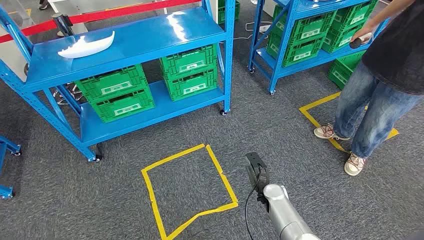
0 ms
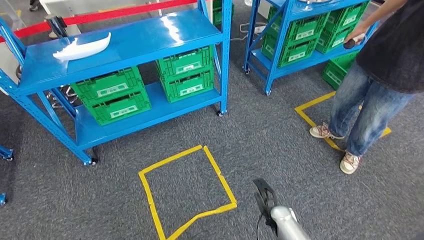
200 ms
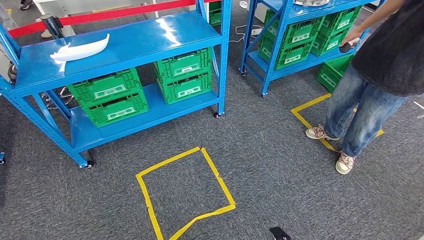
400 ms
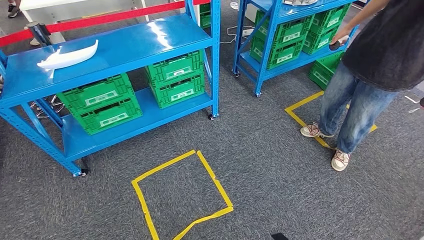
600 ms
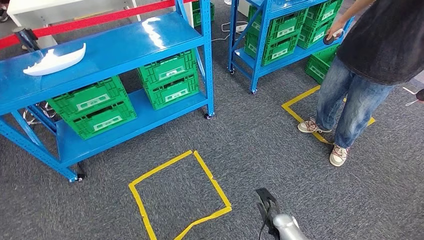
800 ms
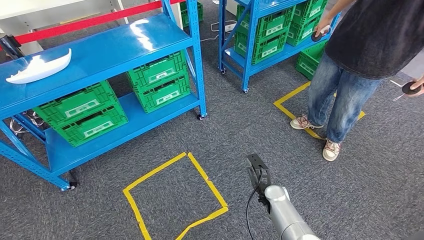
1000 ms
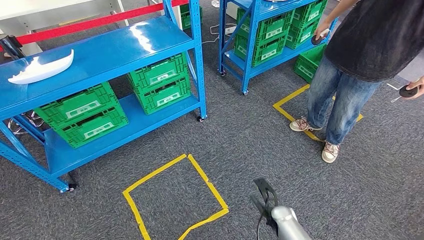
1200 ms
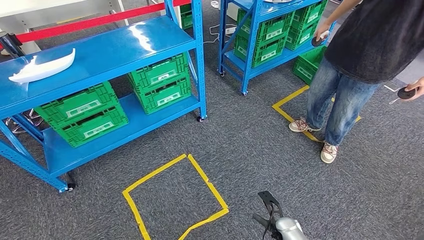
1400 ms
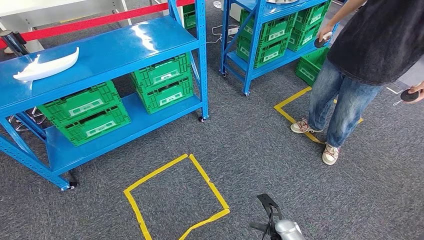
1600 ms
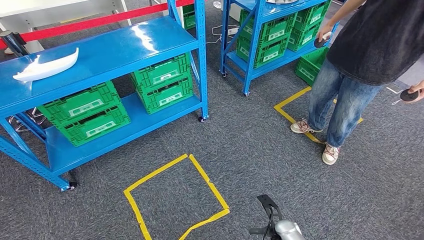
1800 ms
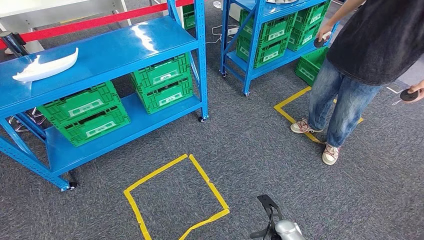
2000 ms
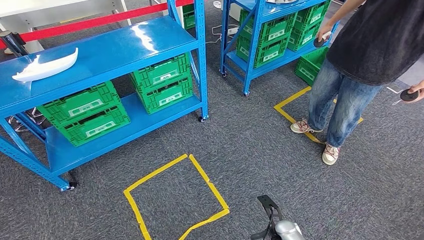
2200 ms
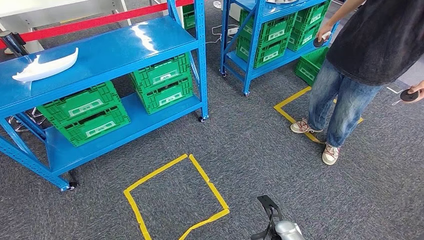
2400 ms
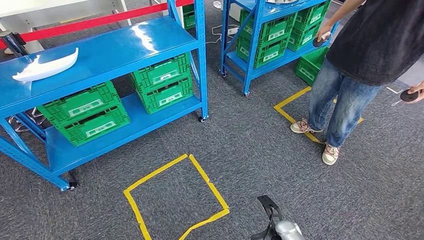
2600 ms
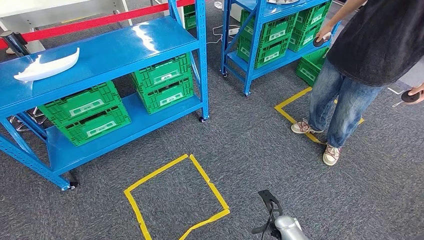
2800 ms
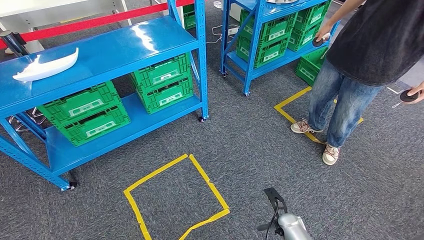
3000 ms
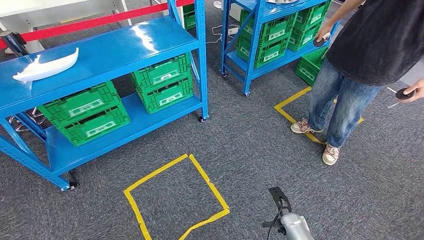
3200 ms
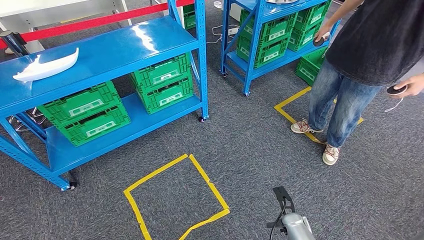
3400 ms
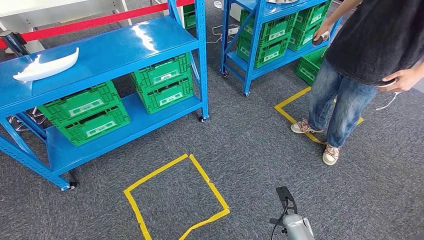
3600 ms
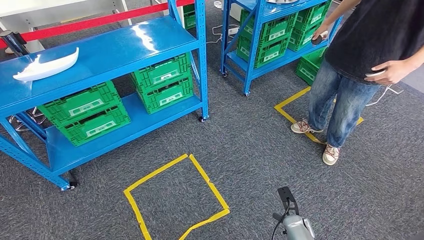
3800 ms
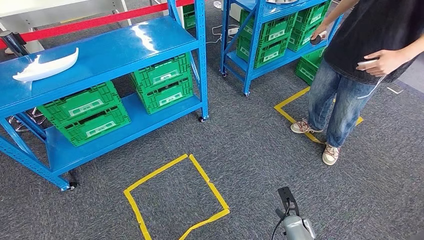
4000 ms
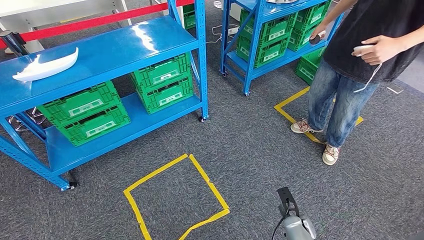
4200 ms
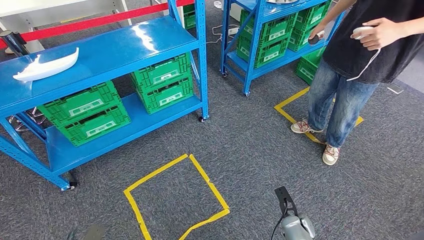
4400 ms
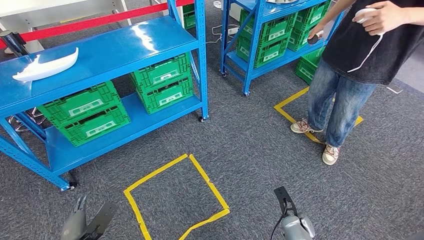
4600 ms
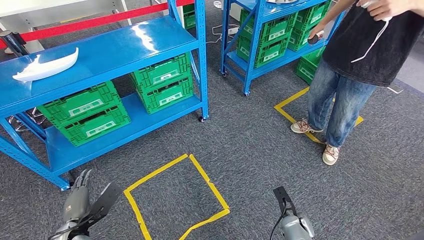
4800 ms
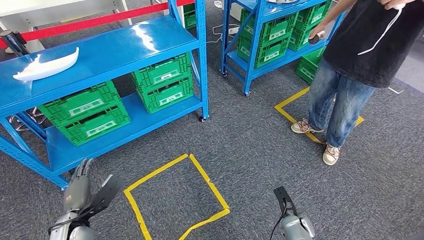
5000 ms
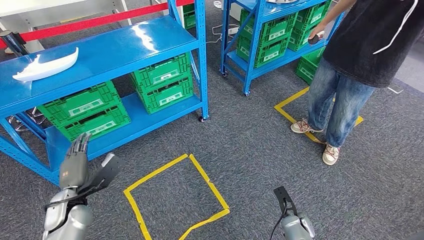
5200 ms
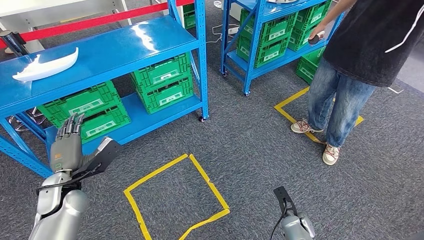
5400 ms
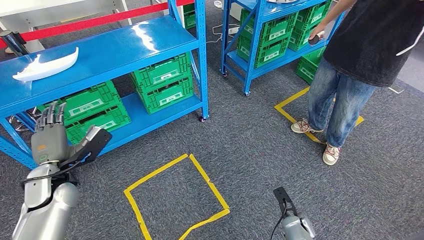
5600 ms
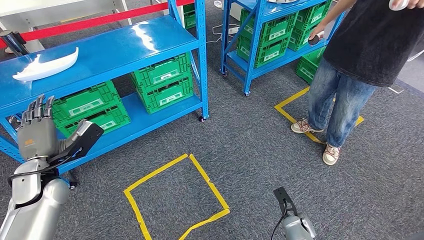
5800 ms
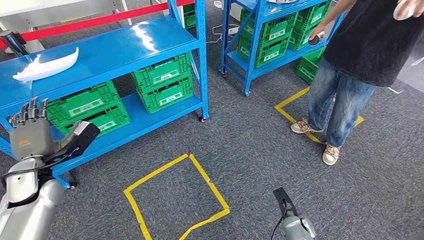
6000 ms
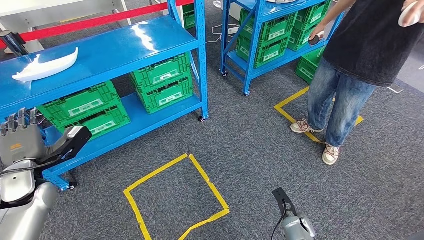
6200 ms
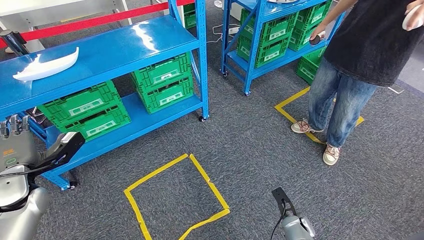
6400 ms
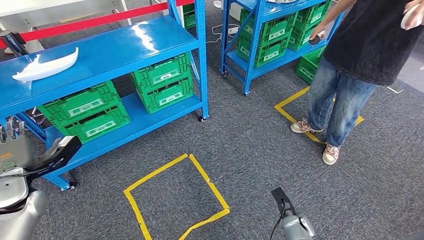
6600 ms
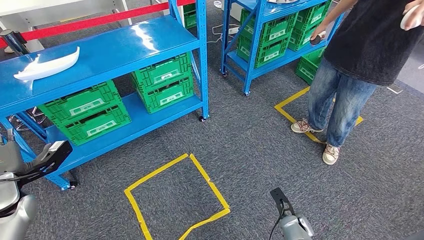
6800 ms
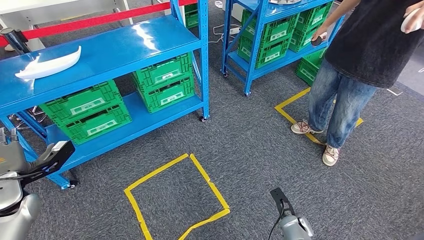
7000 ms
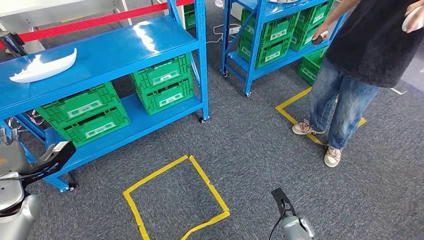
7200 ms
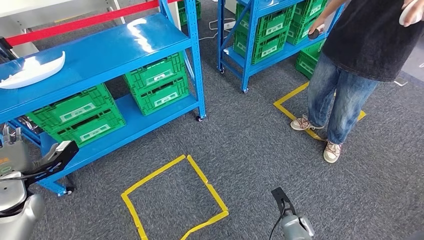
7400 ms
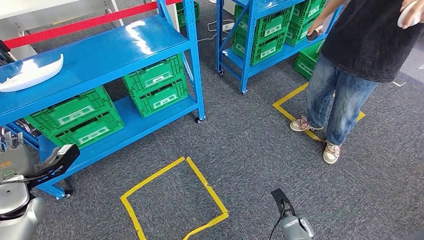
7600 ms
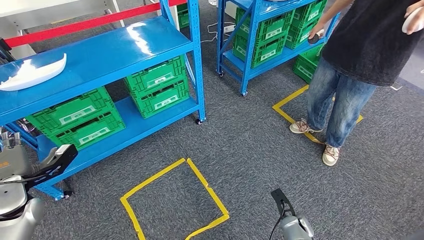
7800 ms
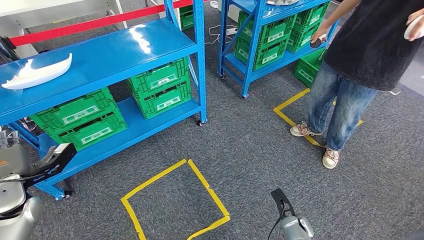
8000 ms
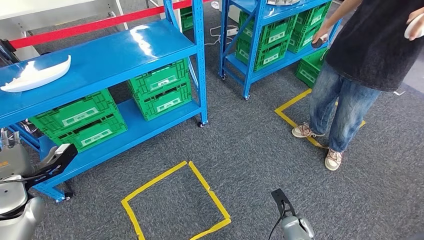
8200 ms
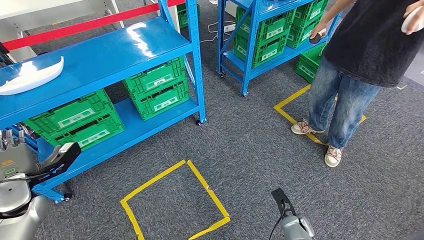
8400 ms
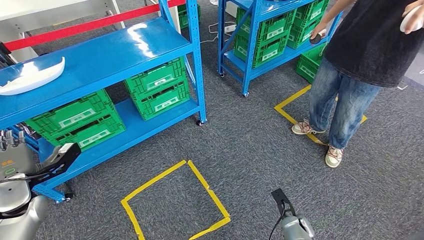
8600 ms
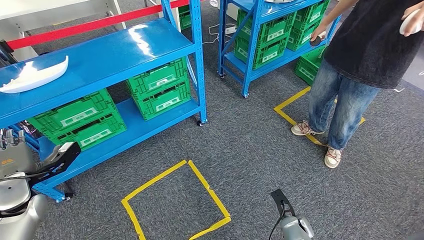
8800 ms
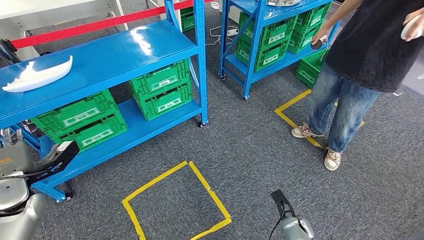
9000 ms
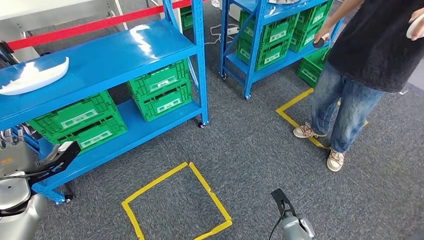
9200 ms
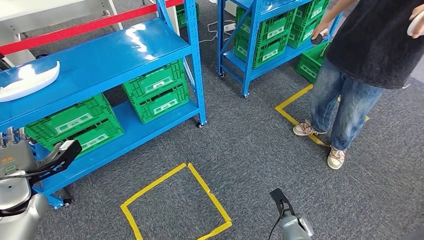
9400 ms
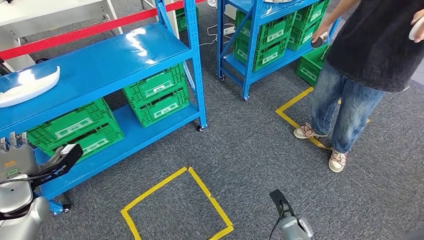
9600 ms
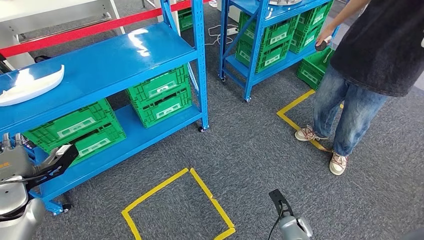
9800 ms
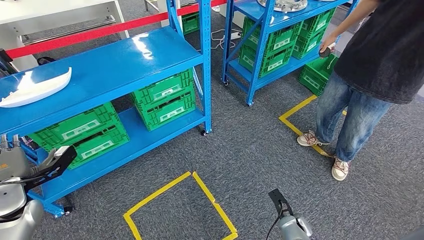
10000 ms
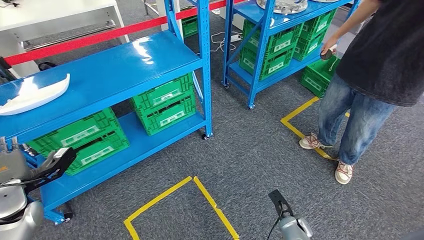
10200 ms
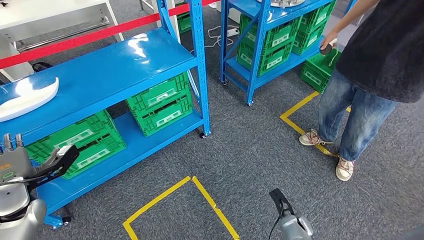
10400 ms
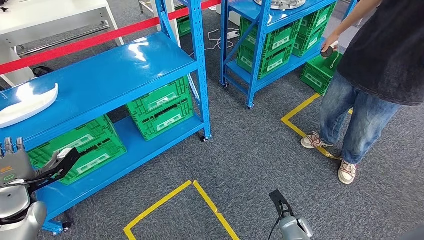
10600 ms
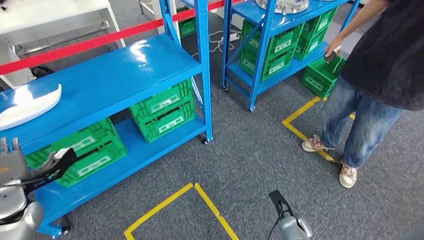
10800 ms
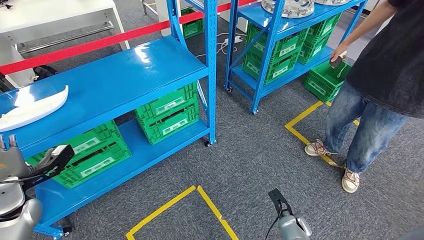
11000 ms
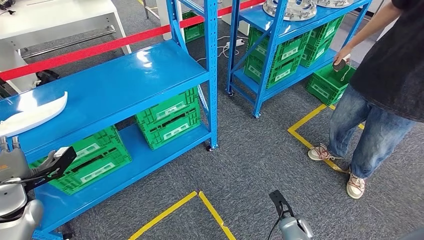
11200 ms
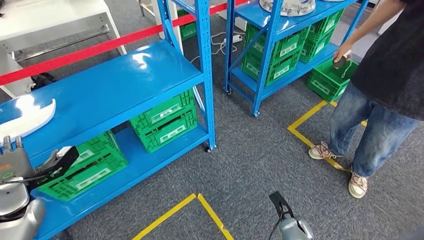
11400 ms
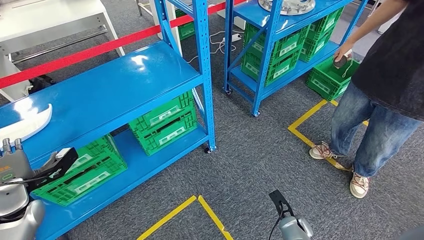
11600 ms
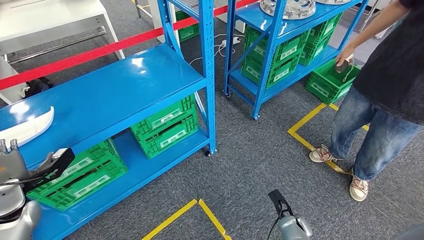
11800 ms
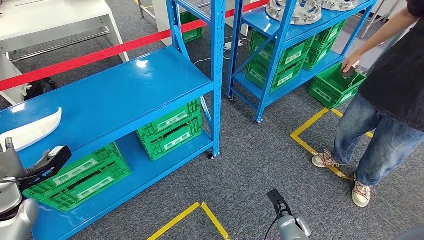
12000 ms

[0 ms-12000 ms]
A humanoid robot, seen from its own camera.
1600 ms to 3000 ms: The hands stay close to where they were, moving slightly.
4400 ms to 6000 ms: The left hand heads forward and upward, covering roughly 30 cm.

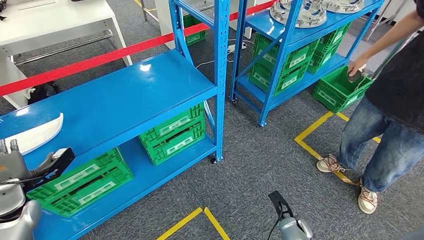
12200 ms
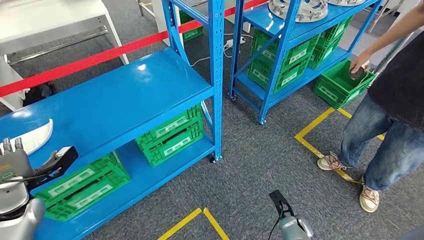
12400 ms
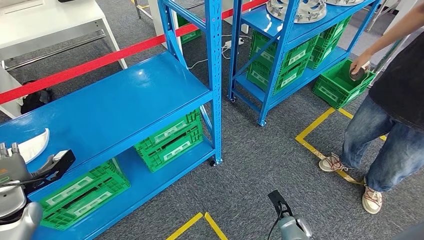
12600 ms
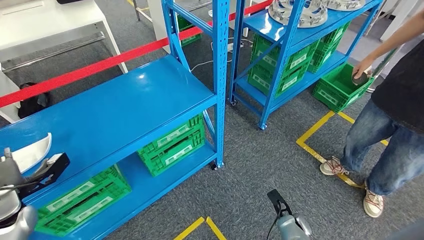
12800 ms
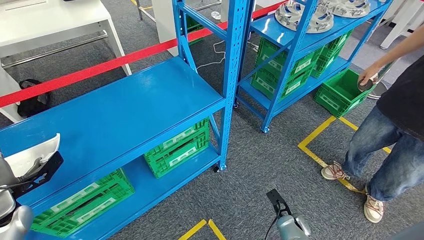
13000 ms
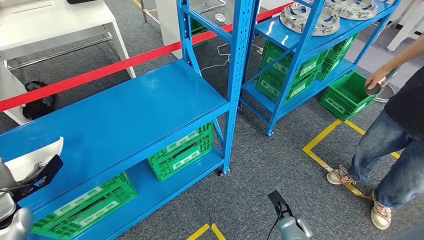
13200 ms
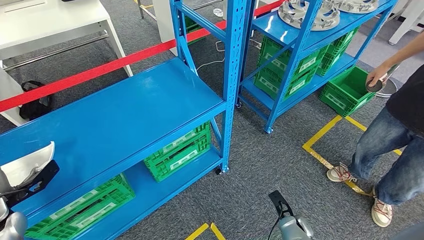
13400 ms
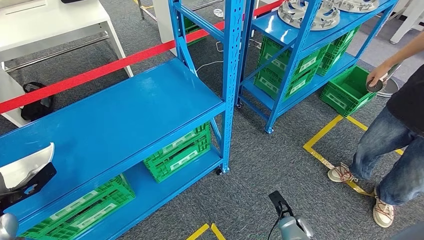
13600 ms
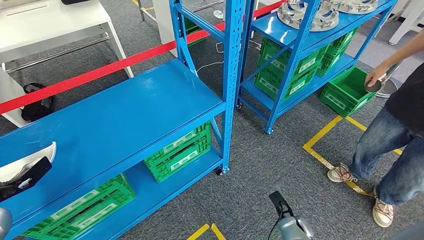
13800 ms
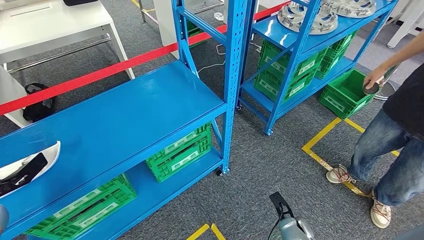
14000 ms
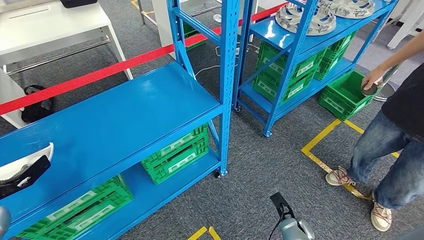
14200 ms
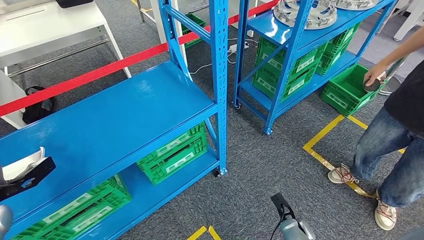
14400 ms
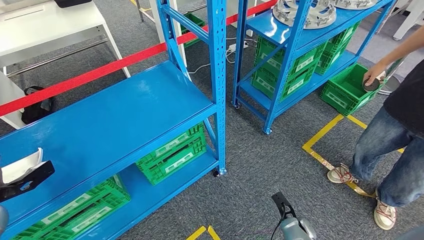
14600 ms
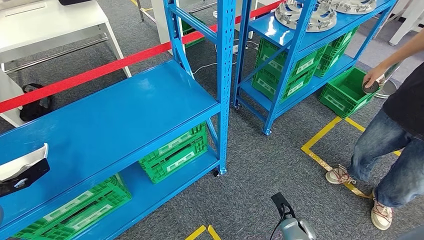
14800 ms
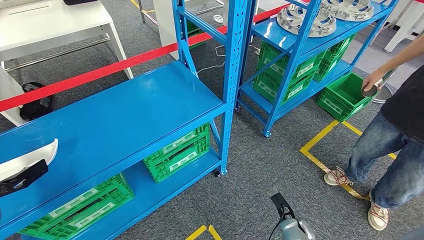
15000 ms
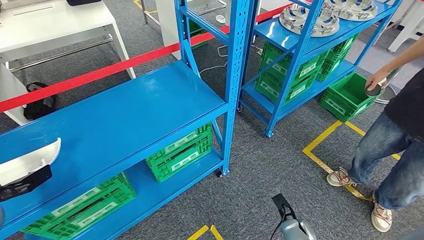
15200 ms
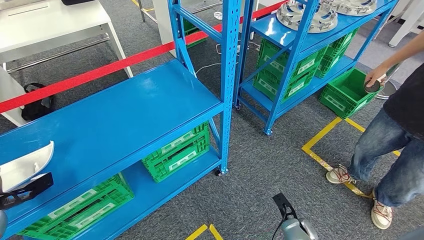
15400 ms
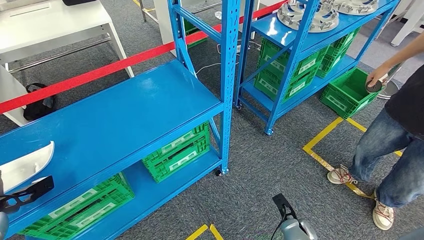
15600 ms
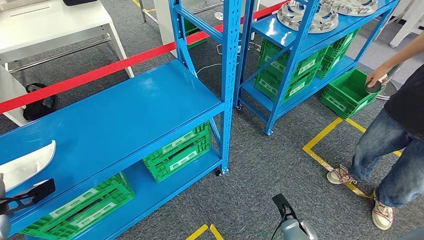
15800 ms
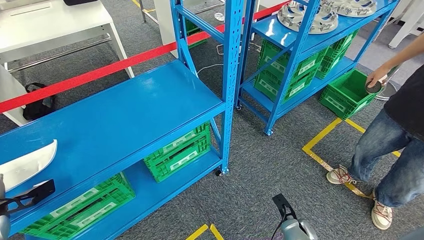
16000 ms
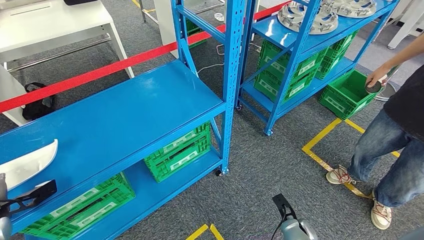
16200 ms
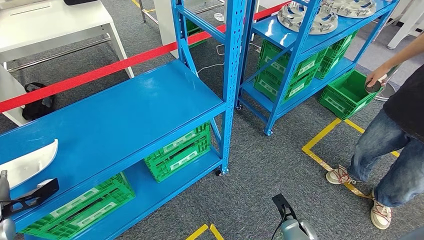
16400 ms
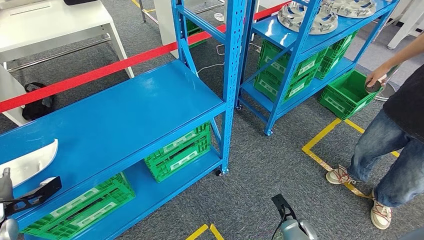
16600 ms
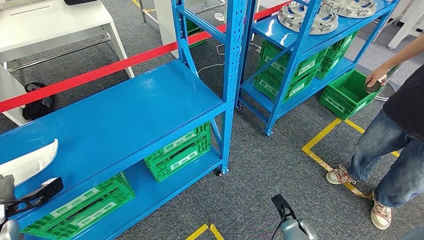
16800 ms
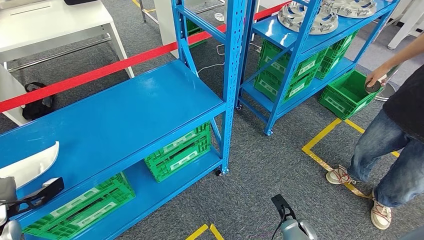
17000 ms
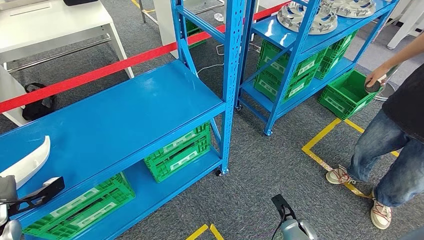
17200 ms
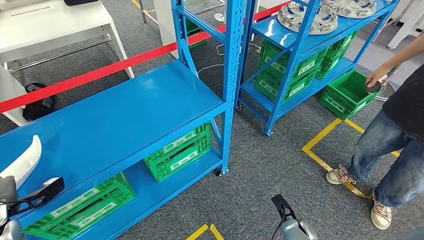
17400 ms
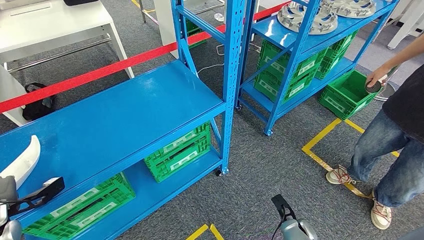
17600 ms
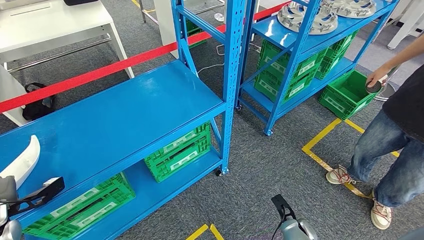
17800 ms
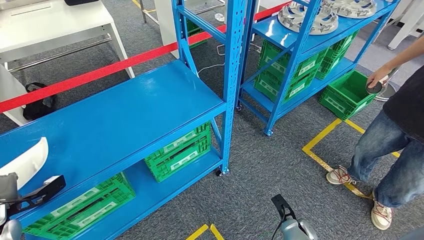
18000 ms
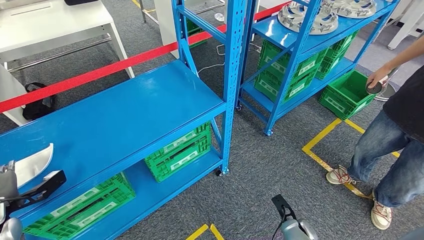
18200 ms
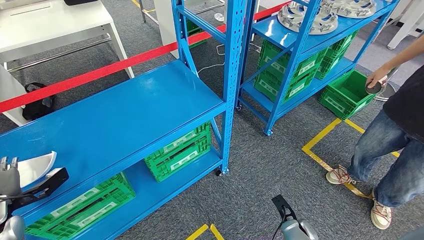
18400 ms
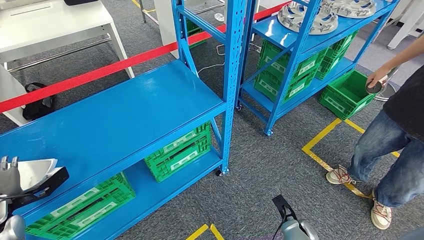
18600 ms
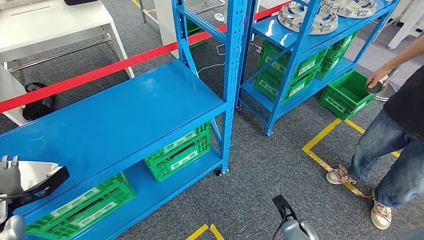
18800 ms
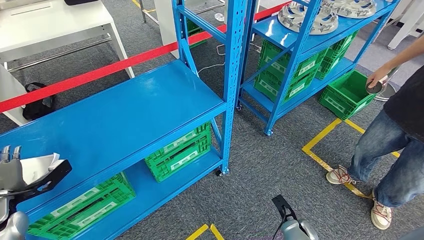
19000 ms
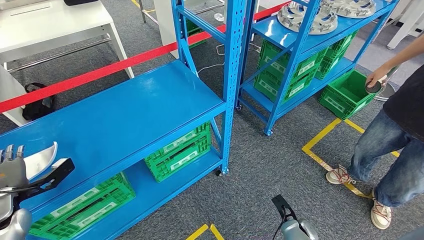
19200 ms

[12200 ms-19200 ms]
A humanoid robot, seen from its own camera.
13600 ms to 15000 ms: The hands make only small movements.
15000 ms to 16400 ms: The left hand shifts by approximately 5 cm.
16400 ms to 17800 ms: The two hands keep their place.
17800 ms to 19200 ms: The hands stay close to where they were, moving slightly.
